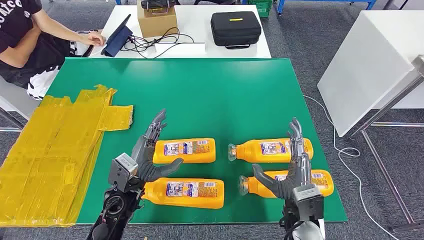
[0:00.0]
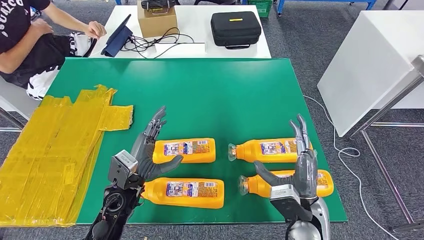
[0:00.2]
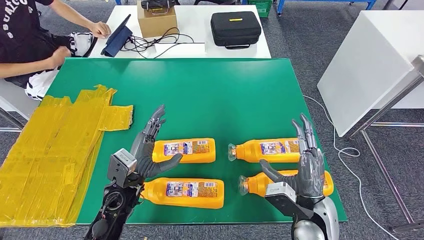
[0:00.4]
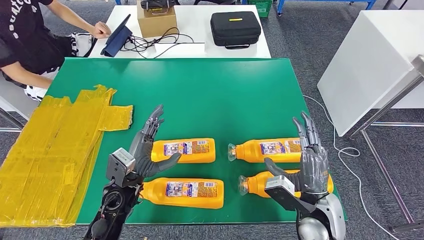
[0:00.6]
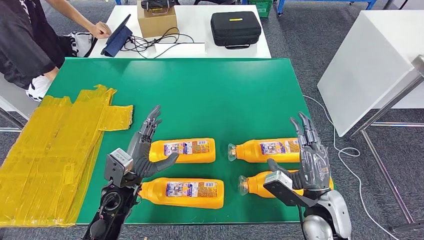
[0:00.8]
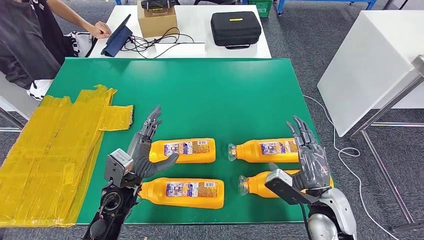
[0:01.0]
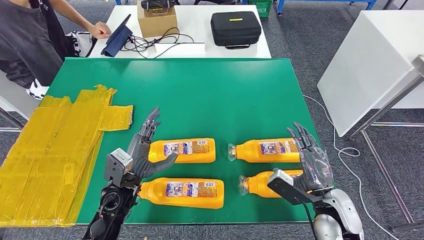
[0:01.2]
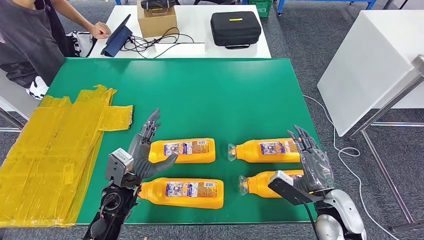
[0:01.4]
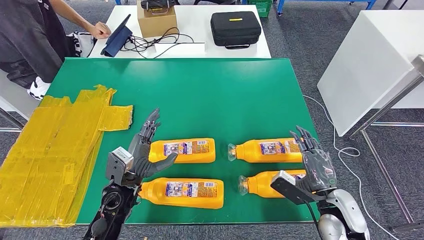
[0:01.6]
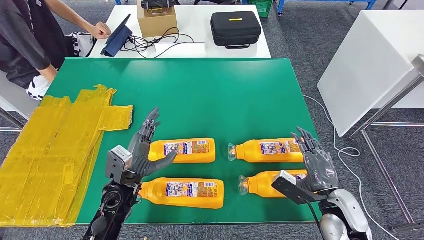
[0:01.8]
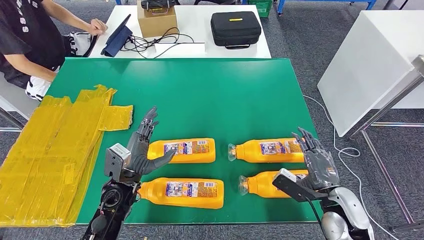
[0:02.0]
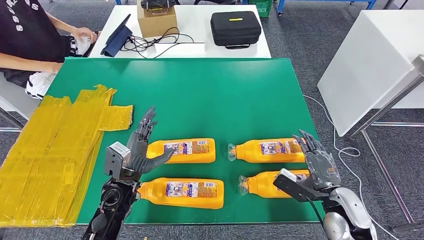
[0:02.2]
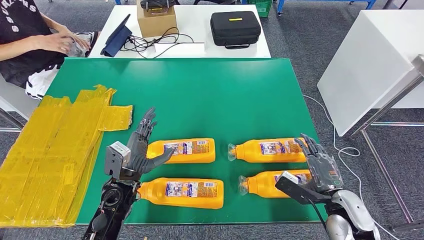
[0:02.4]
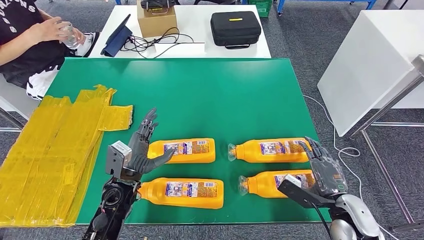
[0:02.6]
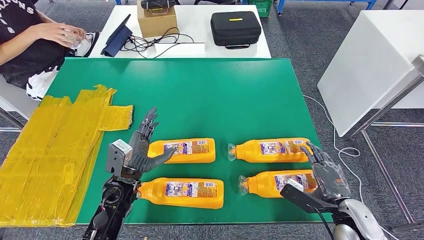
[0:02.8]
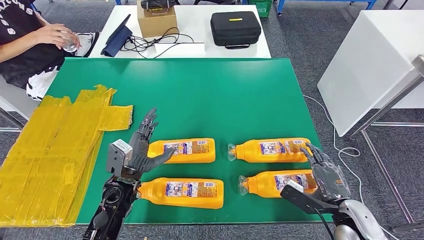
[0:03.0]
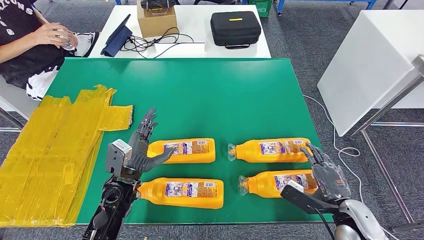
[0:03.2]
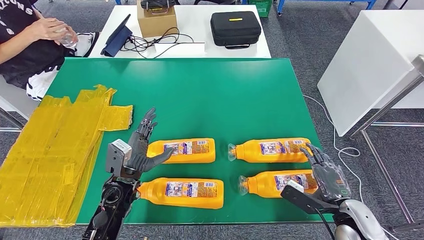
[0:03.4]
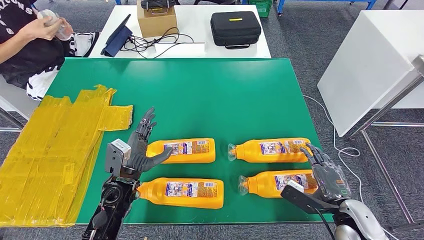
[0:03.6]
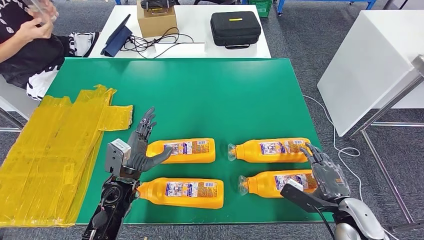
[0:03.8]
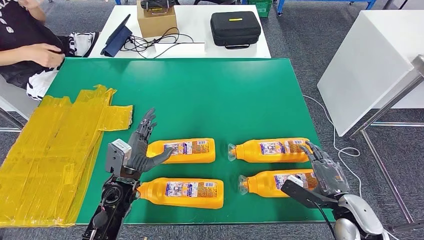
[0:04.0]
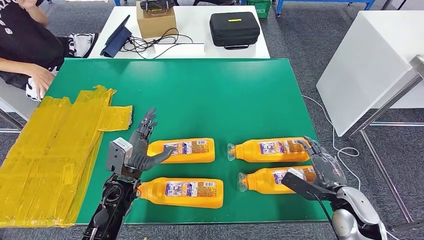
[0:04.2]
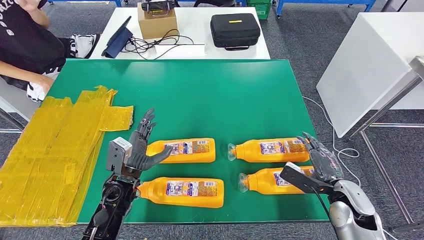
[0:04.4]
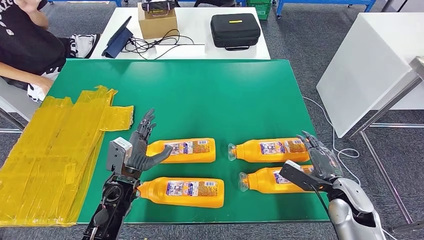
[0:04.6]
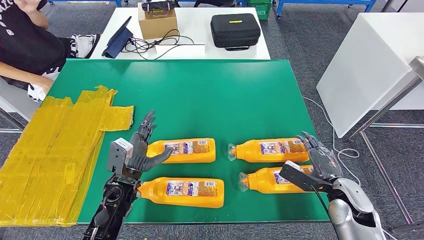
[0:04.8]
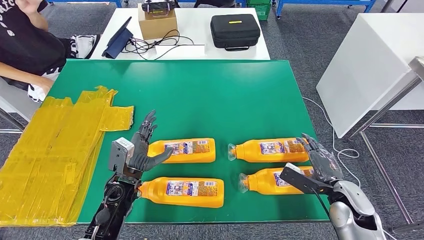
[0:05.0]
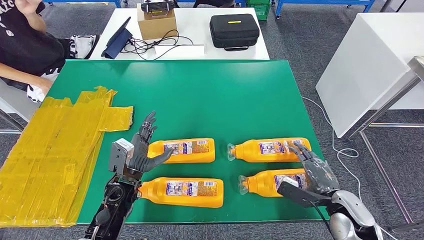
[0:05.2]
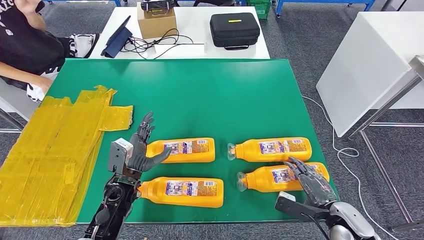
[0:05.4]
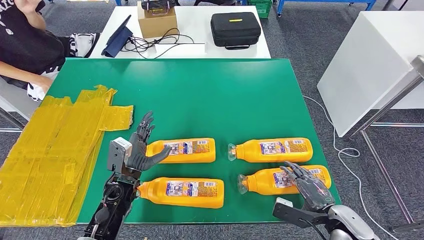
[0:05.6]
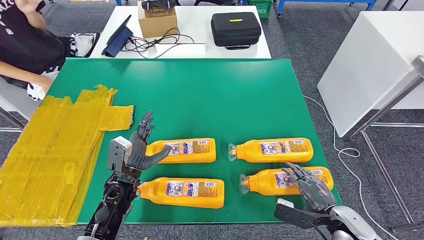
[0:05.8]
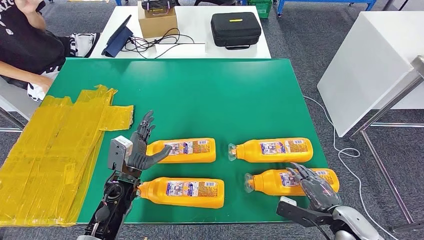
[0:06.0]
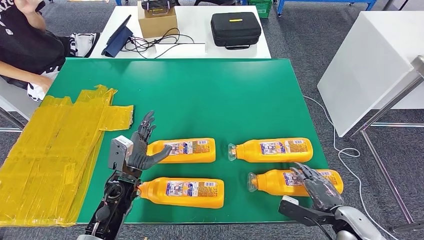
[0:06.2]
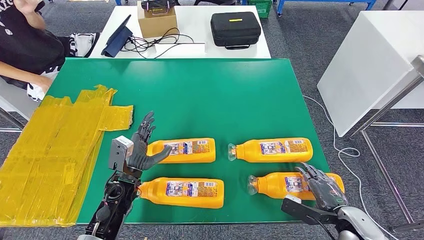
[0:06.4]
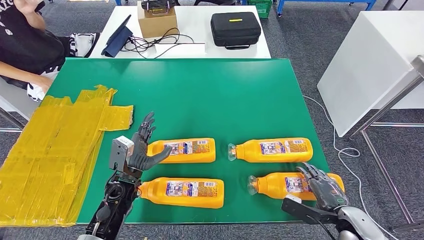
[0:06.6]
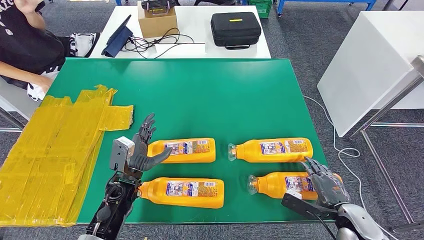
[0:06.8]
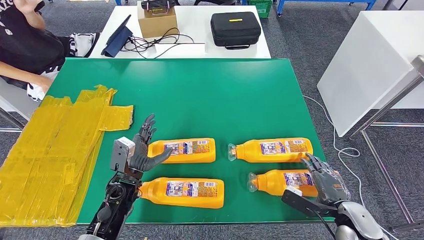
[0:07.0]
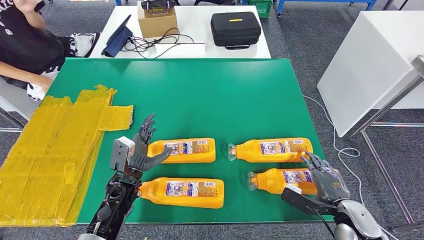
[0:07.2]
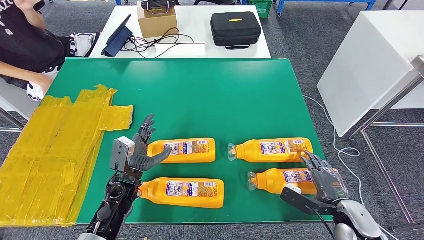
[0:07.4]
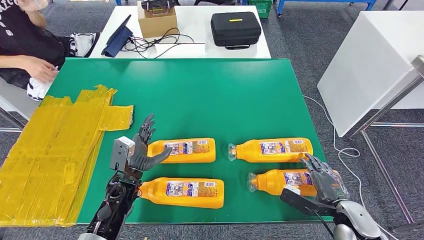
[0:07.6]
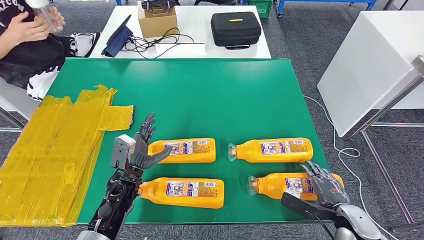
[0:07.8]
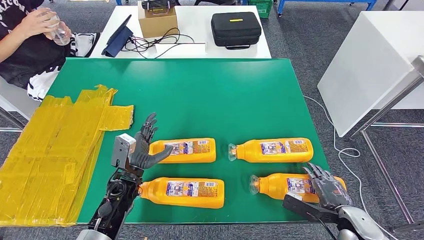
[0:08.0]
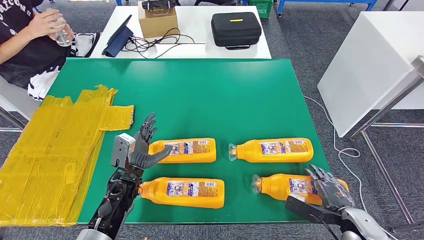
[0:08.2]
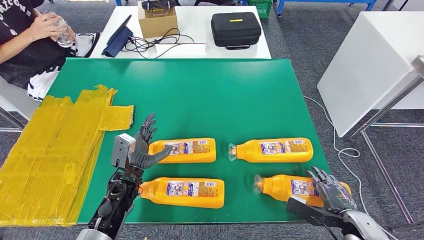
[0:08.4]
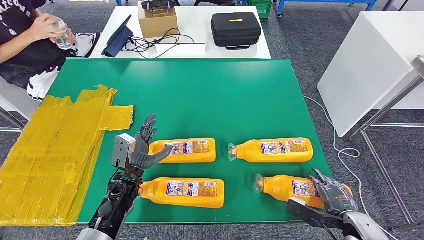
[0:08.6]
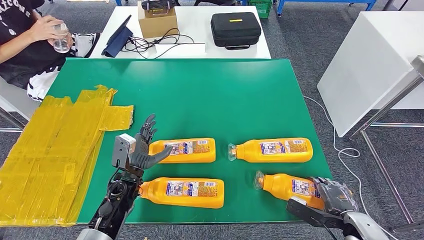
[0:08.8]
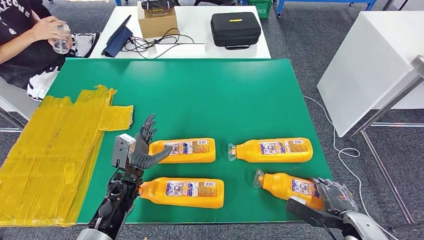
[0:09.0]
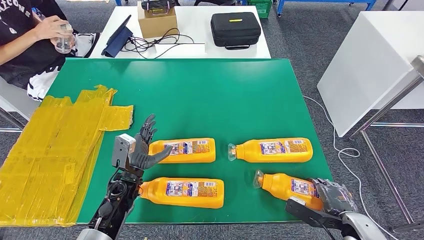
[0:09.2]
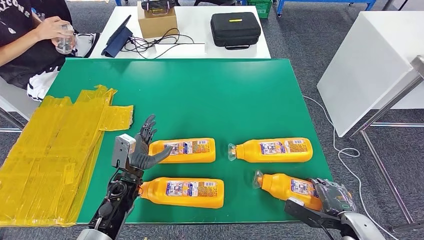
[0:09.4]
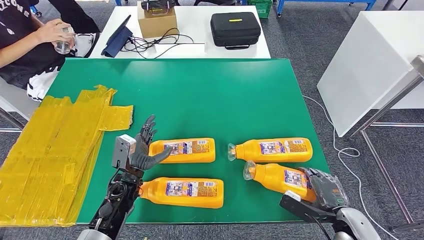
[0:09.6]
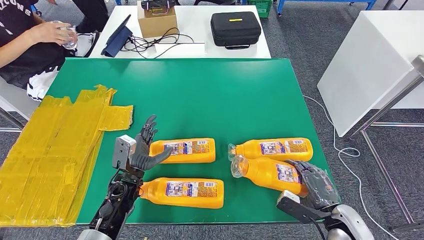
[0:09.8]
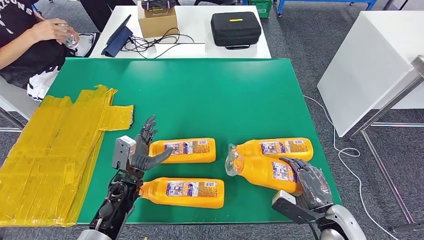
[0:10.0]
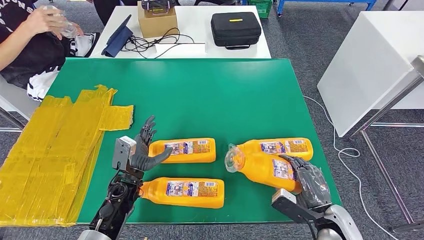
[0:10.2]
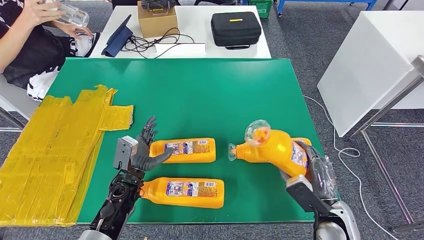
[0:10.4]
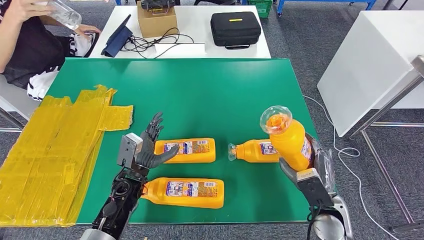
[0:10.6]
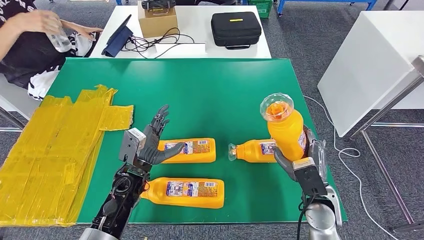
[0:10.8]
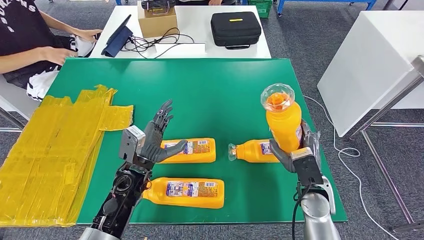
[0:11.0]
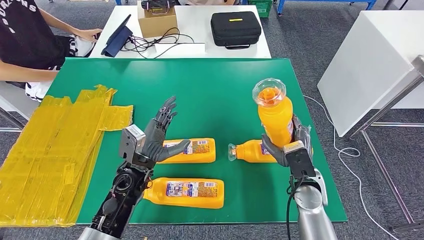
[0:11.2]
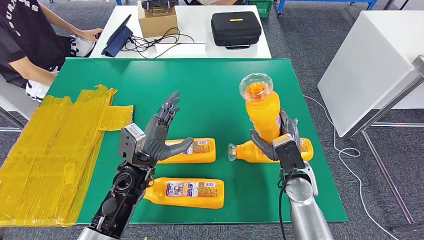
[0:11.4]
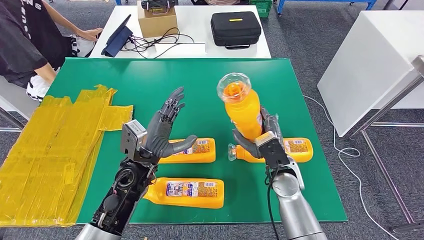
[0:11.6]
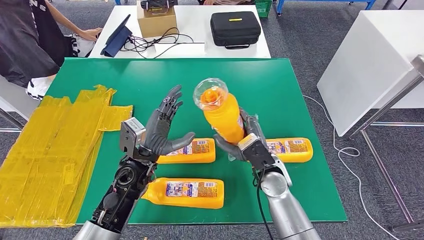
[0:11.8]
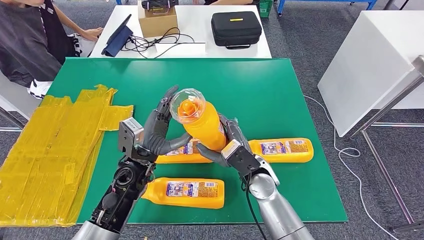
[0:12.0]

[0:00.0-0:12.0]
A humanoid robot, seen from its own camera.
Step, 0:00.0 to 0:10.6: Take the bottle from the table.
0:01.6 to 0:03.0: The hands stay close to where they were, moving slightly.
0:03.0 to 0:04.4: The right hand moves forward, approximately 5 cm.
0:04.4 to 0:06.0: The right hand shifts roughly 5 cm backward.
0:06.0 to 0:09.0: The hands make only small movements.
0:09.0 to 0:10.4: The right hand is displaced to the left by approximately 5 cm.

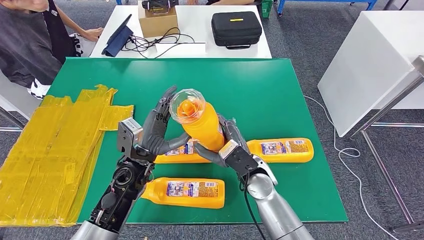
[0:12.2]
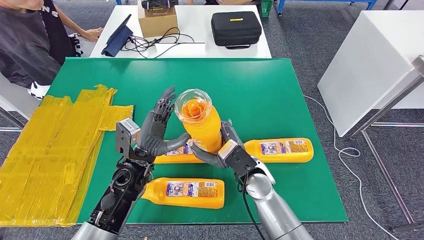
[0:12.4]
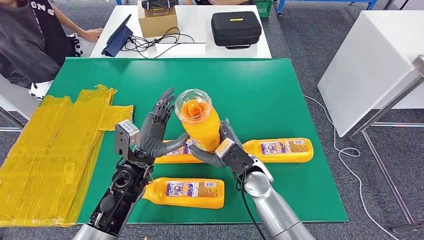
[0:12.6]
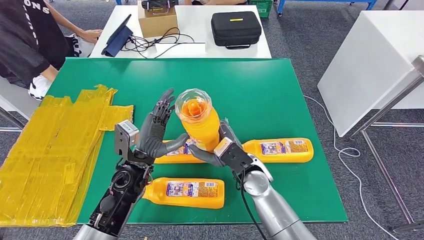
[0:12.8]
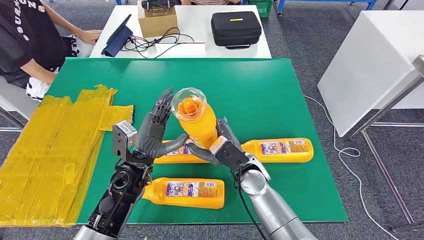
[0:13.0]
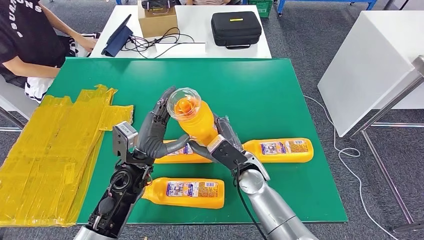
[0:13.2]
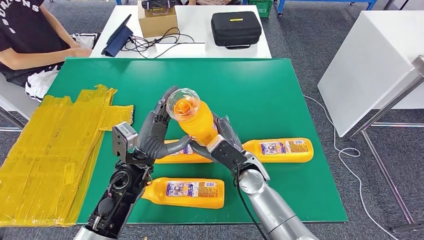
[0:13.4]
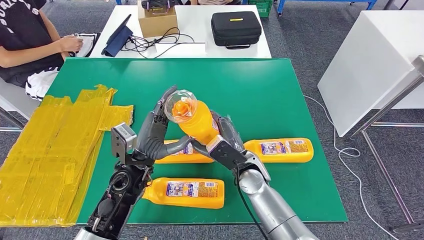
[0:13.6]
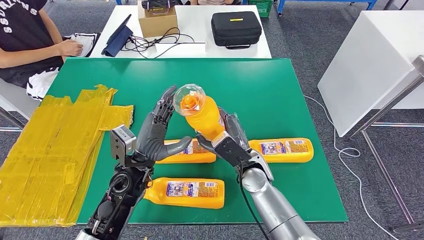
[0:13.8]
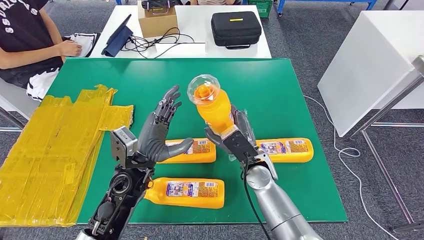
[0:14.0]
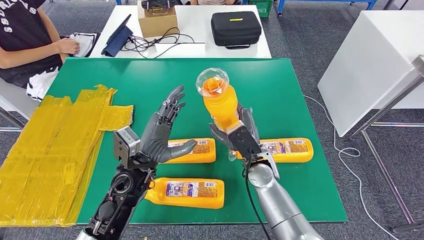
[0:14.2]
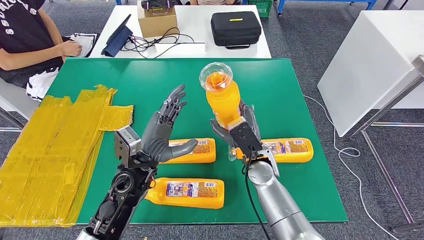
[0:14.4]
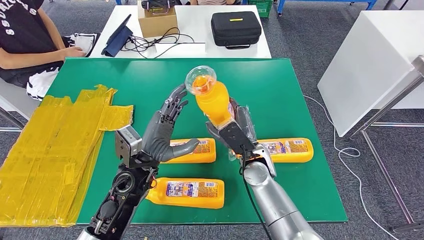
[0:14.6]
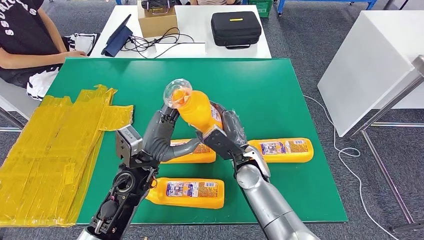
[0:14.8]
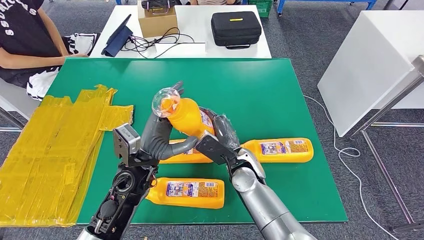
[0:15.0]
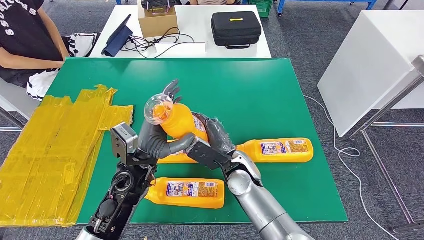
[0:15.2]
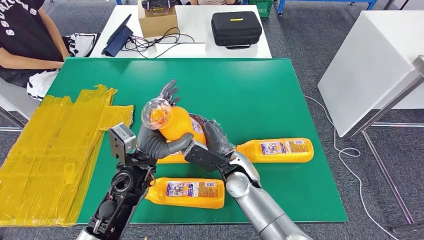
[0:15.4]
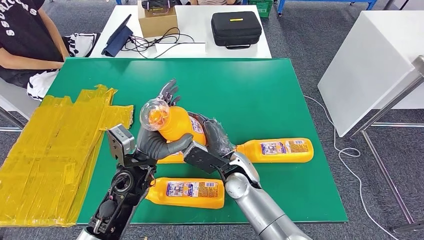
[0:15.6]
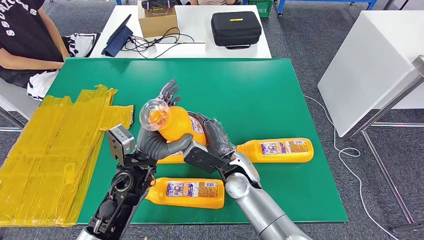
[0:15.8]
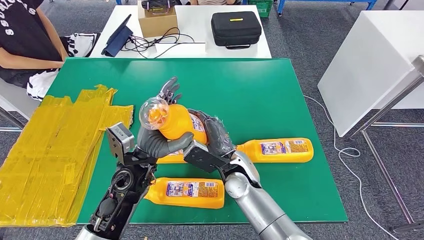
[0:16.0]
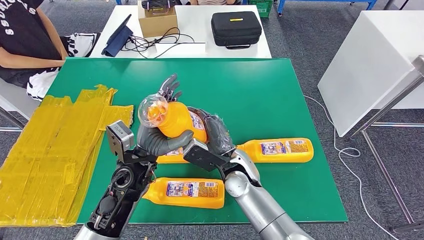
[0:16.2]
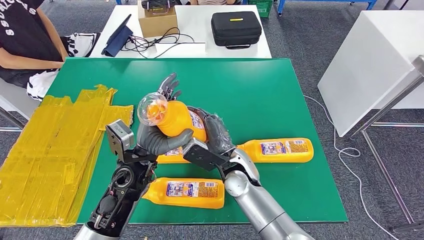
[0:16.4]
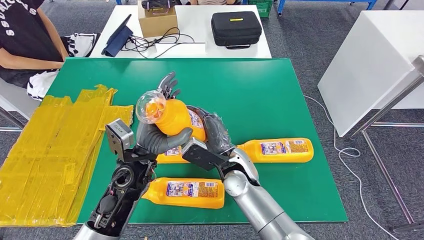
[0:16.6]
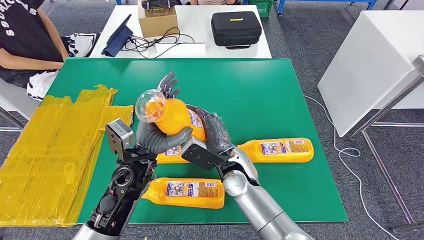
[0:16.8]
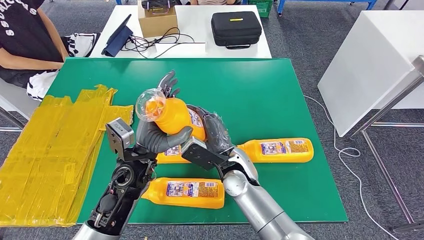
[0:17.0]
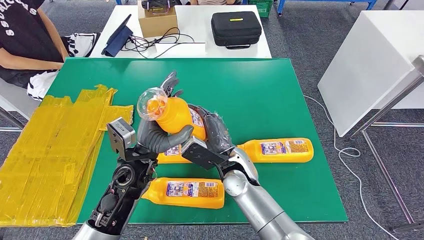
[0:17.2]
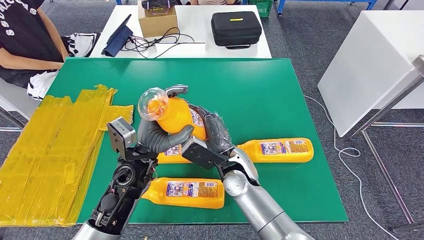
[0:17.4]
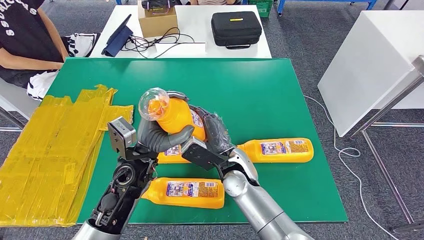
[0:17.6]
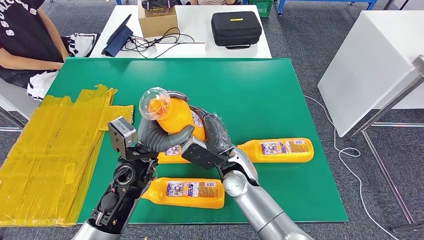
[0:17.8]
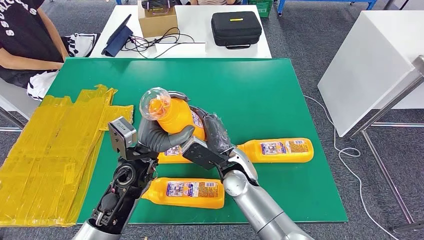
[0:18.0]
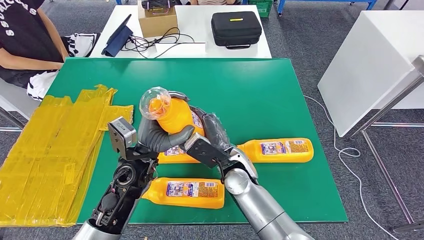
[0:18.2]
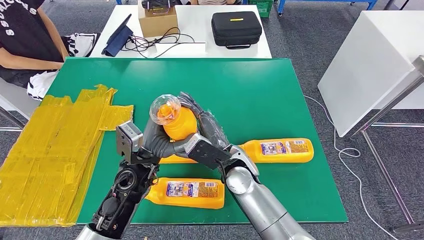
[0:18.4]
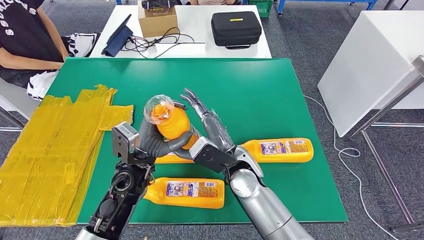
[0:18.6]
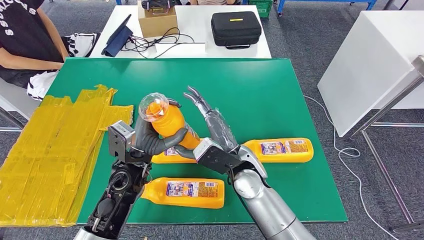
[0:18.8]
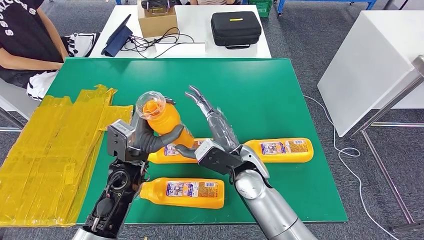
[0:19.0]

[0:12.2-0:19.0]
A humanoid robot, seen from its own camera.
0:12.2 to 0:13.6: The hands stay close to where they were, moving slightly.
0:13.6 to 0:16.2: There are only small adjustments of the hands.
0:16.2 to 0:17.6: Both hands stay put.
0:17.6 to 0:19.0: The hands stay close to where they were, moving slightly.
